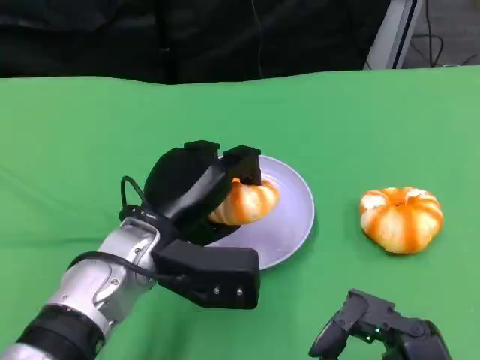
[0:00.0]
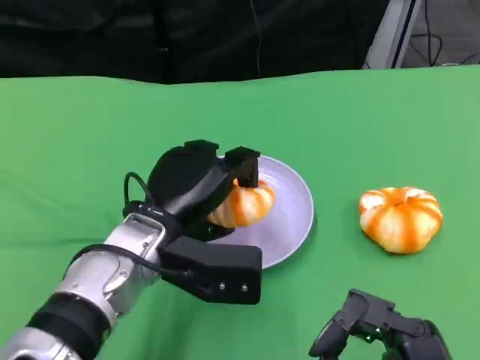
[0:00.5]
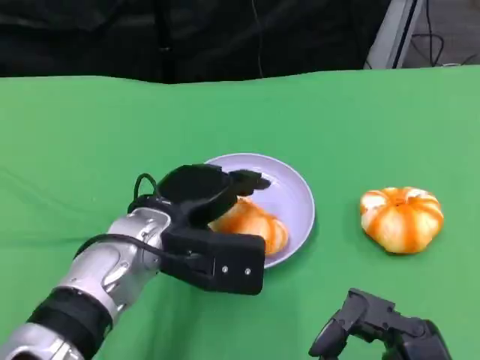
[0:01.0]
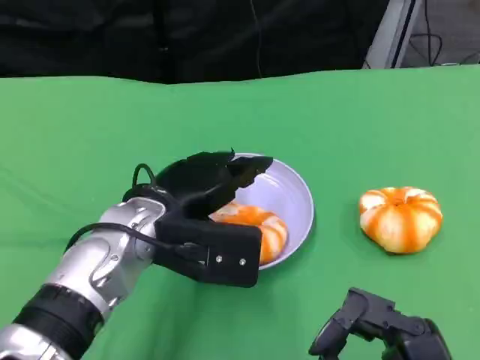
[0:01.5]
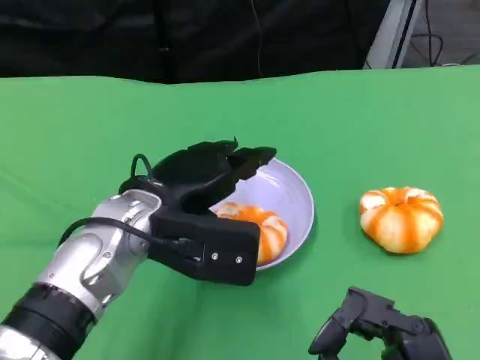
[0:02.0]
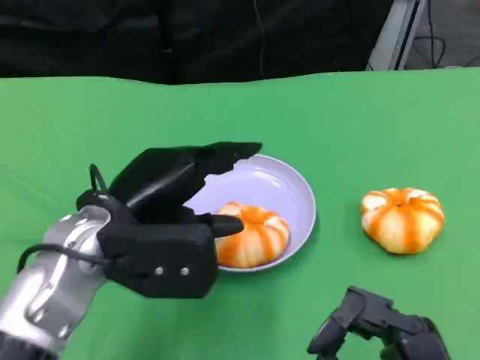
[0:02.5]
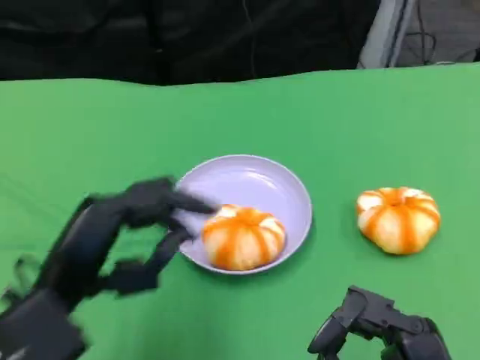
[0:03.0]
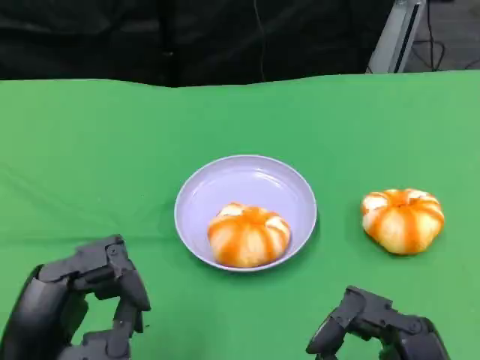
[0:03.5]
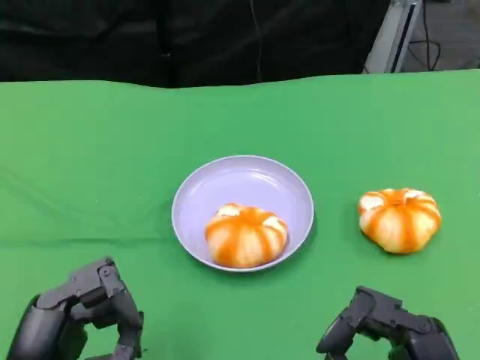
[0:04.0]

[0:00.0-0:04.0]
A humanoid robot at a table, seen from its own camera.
Task of the whole recording: Grasp the bread from the table and place it into the plate.
0:02.0 to 0:04.0: The left hand travels backward and to the left by some 20 cm.

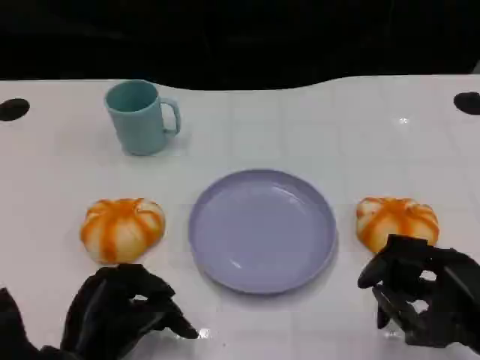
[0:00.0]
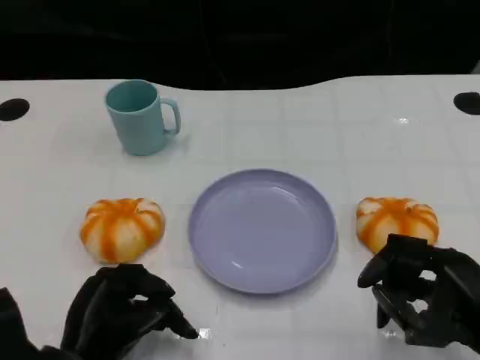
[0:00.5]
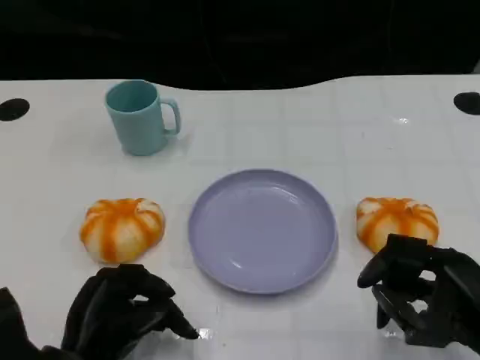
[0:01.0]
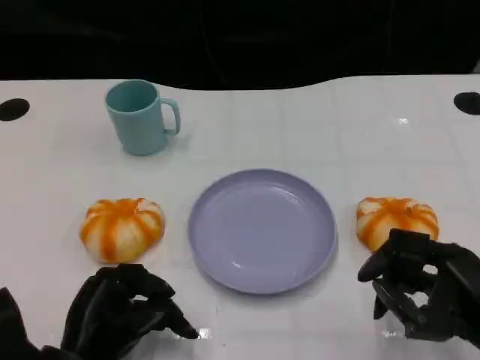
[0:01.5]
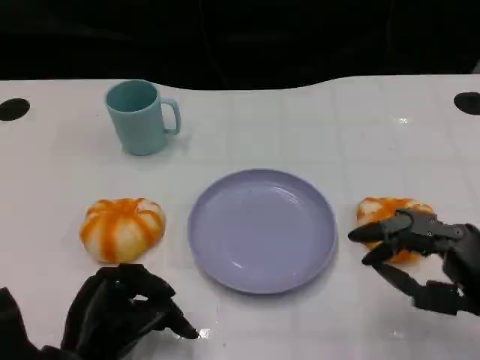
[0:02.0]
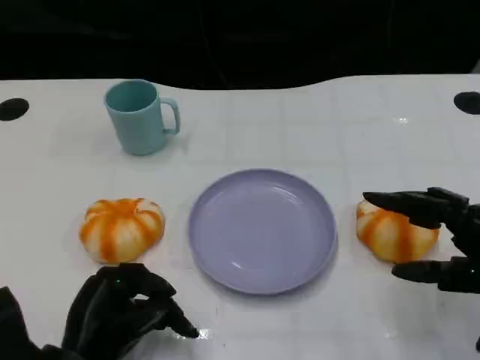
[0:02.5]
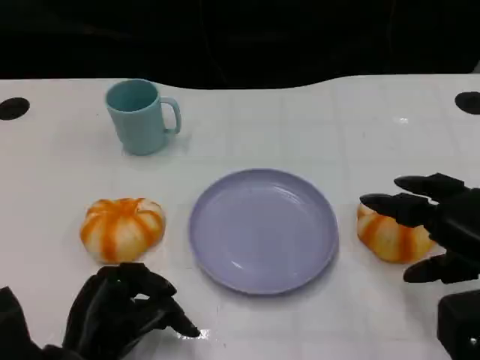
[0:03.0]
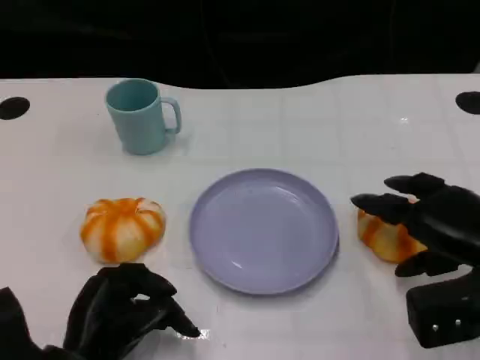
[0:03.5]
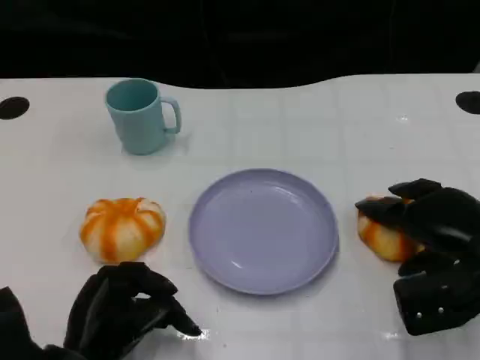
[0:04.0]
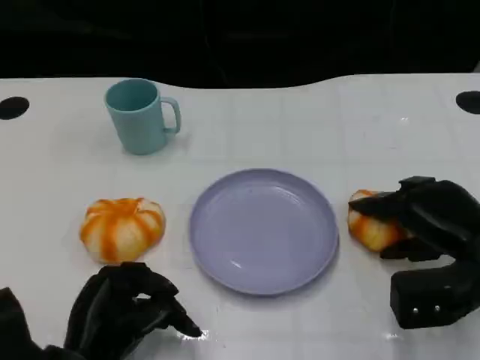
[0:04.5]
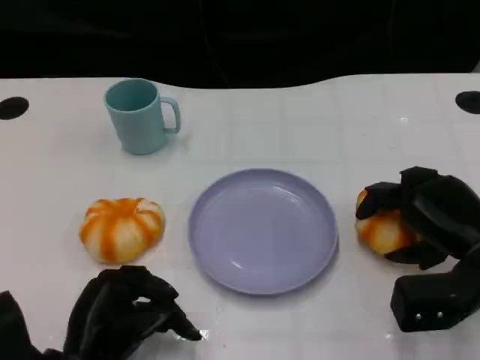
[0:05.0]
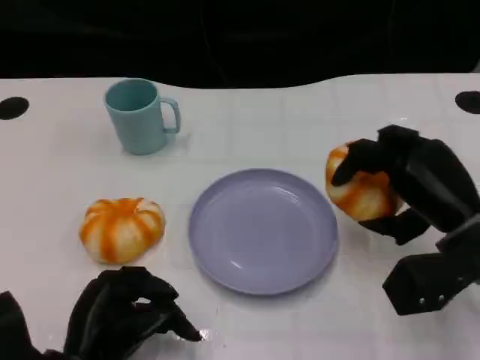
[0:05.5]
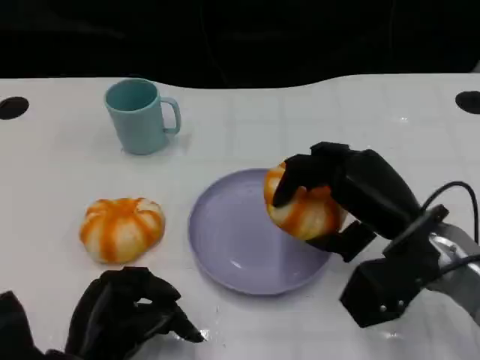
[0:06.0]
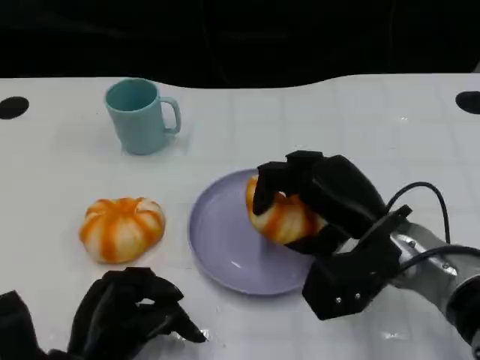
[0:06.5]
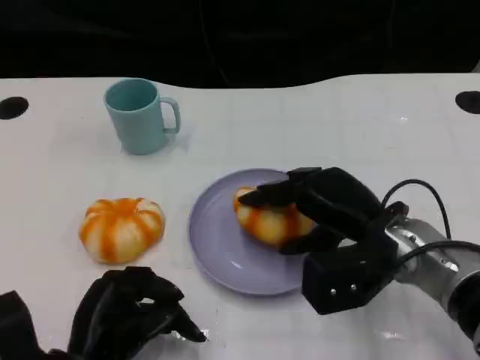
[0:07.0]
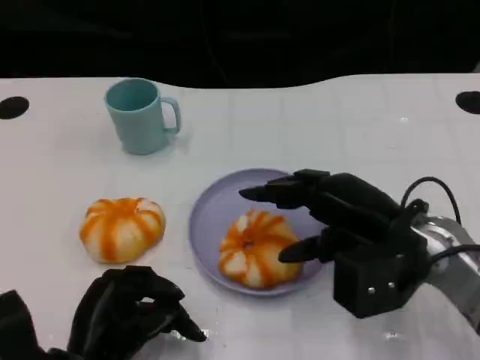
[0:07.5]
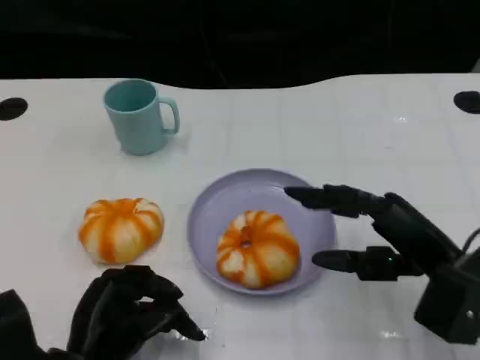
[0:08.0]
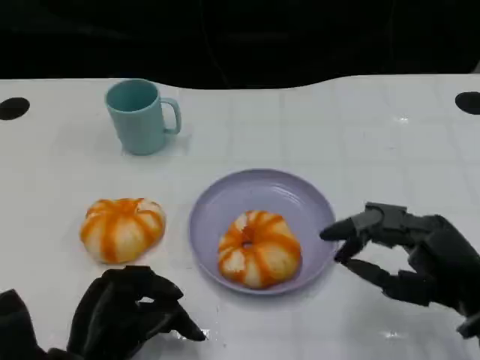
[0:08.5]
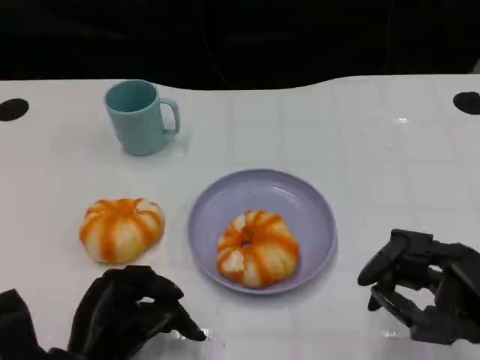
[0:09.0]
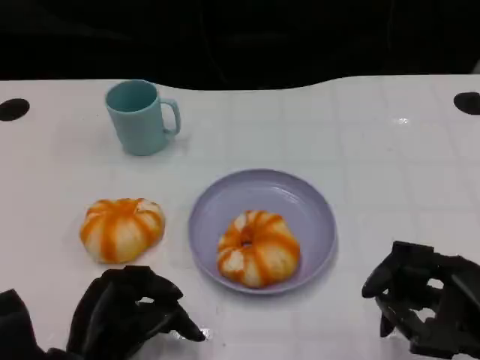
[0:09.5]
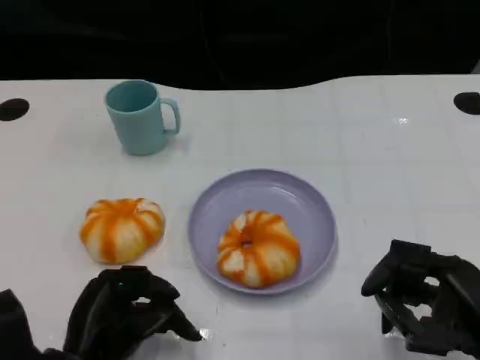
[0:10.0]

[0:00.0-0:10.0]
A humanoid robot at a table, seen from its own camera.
Task of the whole recording: Grasp the bread from the table and place it into the plate.
0:02.0 to 0:04.0: The right hand moves forward, some 10 cm.
0:04.0 to 0:06.0: The right hand moves to the left, some 10 cm.
0:06.0 to 0:08.0: The right hand ends up some 5 cm from where it was.
0:08.0 to 0:10.0: The right hand heads backward, covering roughly 5 cm.

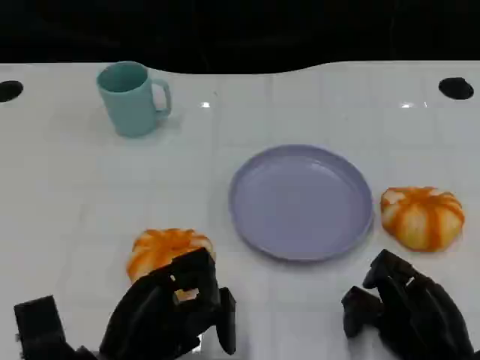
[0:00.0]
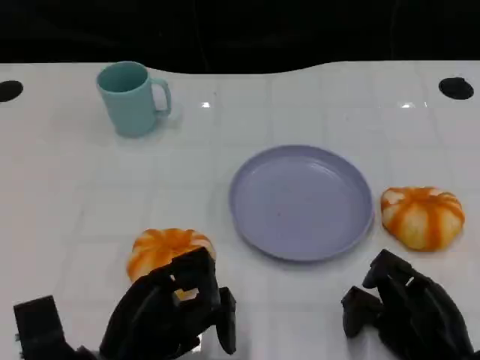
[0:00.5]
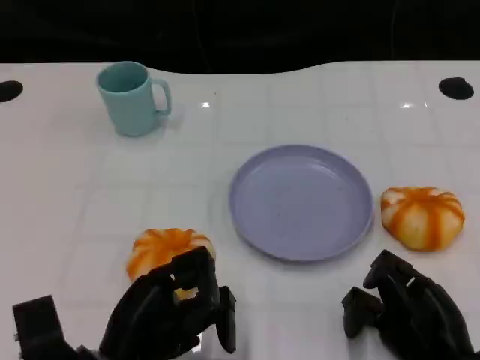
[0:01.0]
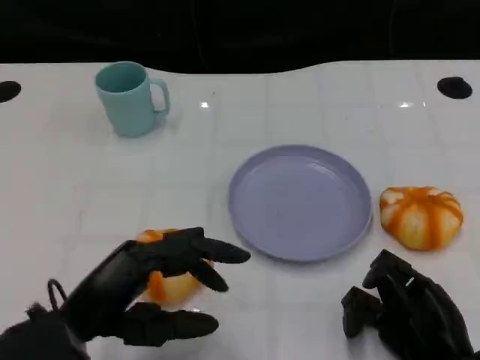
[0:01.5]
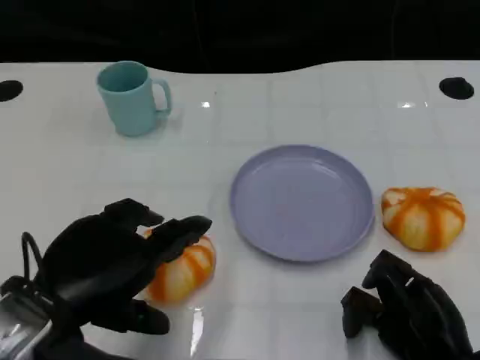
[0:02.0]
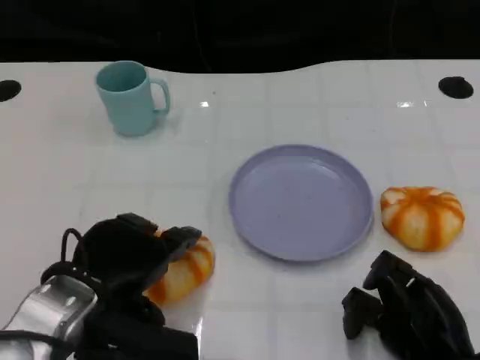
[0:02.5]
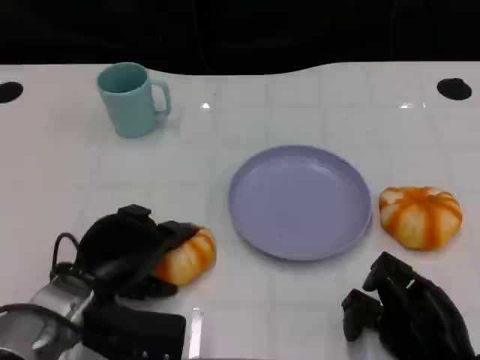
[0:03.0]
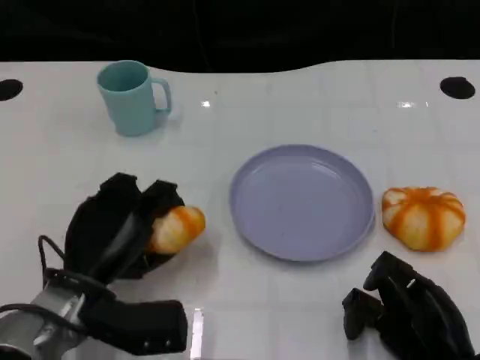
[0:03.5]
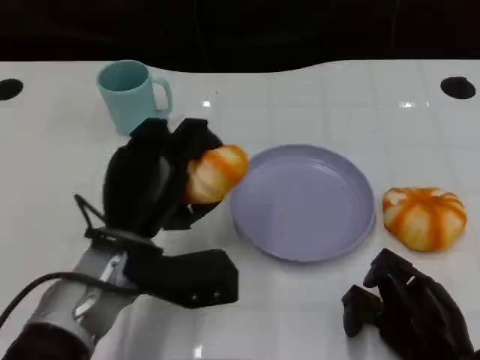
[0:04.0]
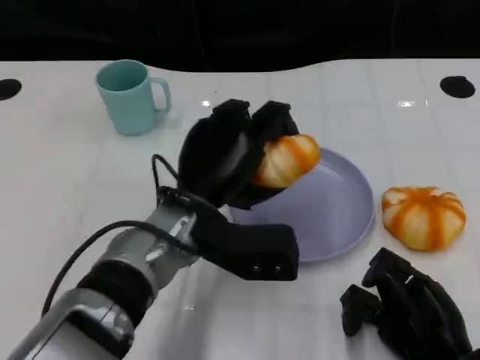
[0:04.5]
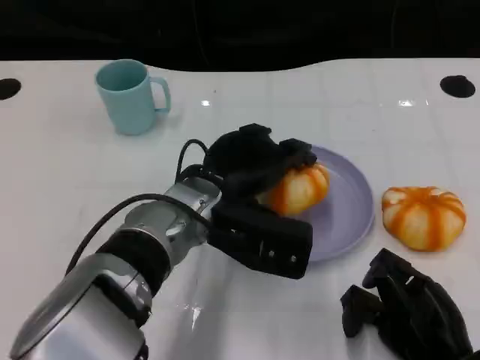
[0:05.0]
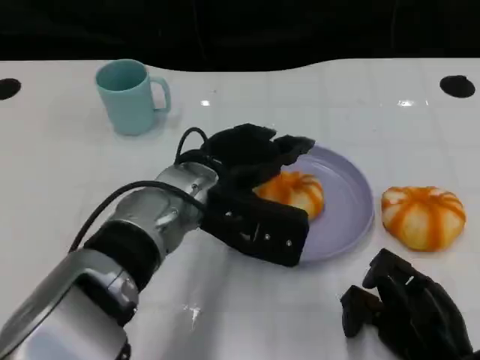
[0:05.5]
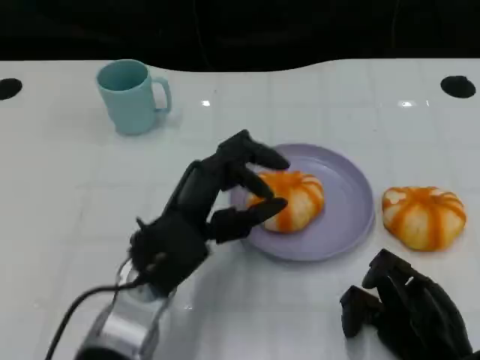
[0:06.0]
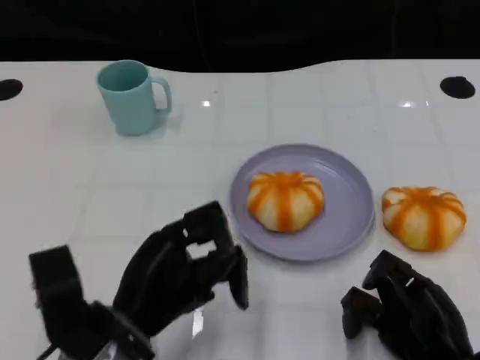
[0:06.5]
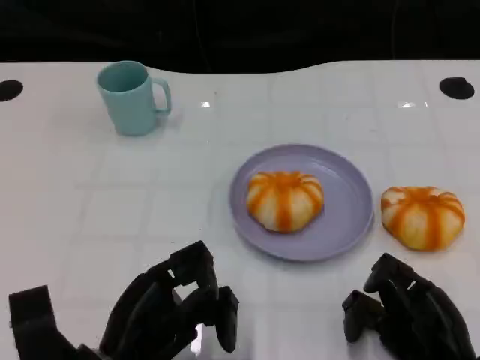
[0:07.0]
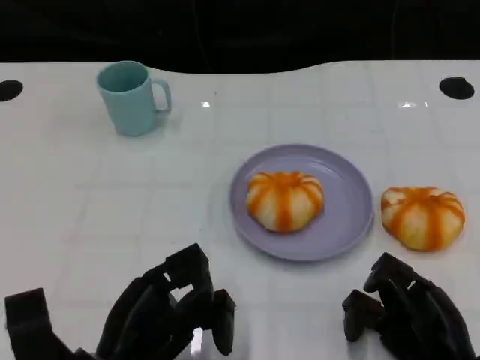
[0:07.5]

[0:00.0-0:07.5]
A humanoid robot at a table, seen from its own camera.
Task of the whole recording: Grasp the bread from the table and place it into the plate.
0:00.0 to 0:02.0: The left hand moves upward, approximately 10 cm.
0:02.0 to 0:04.0: The left hand is displaced forward and to the right by some 10 cm.
0:04.0 to 0:05.5: The left hand heads to the right, covering about 5 cm.
0:05.5 to 0:07.5: The left hand travels backward, to the left and downward by about 20 cm.

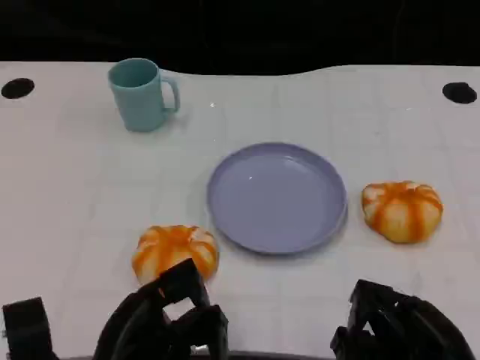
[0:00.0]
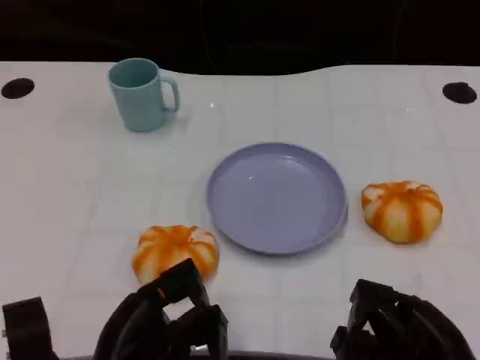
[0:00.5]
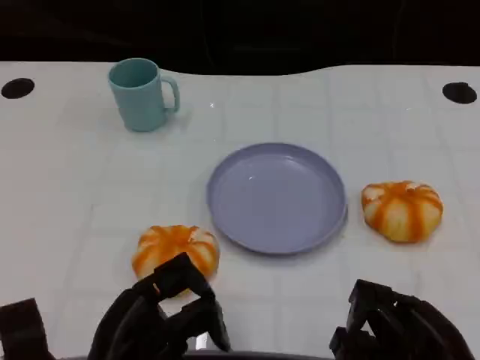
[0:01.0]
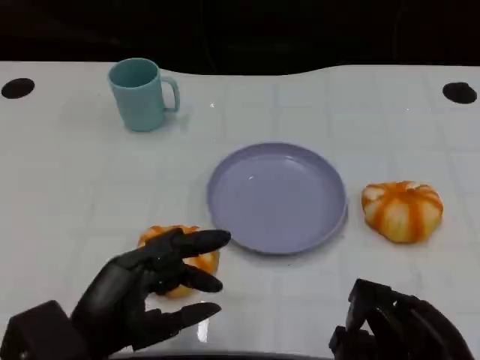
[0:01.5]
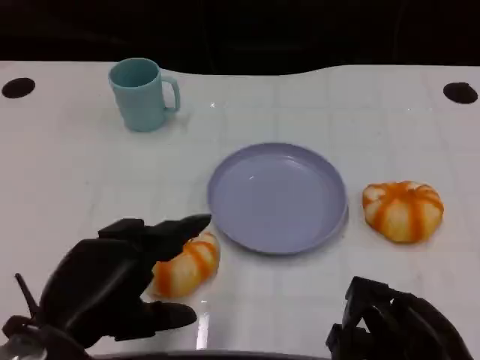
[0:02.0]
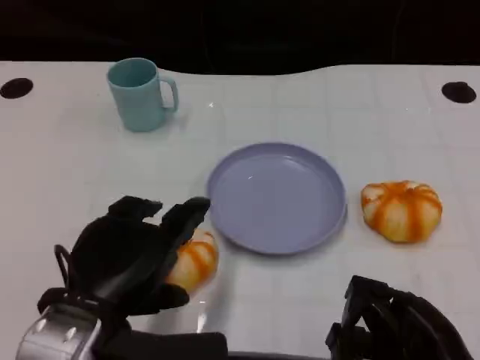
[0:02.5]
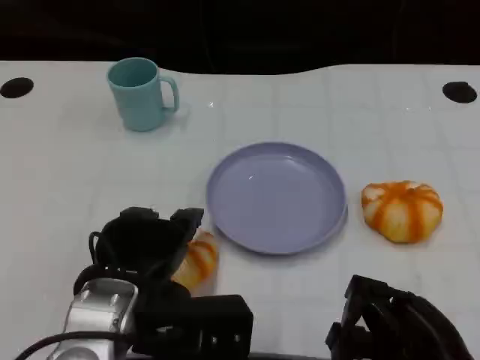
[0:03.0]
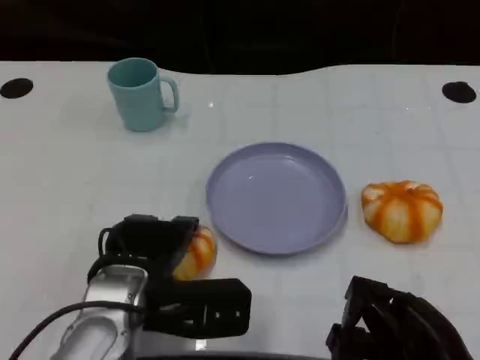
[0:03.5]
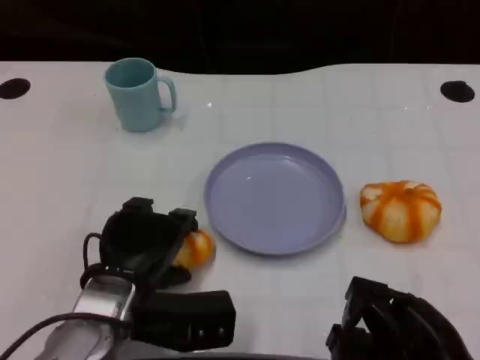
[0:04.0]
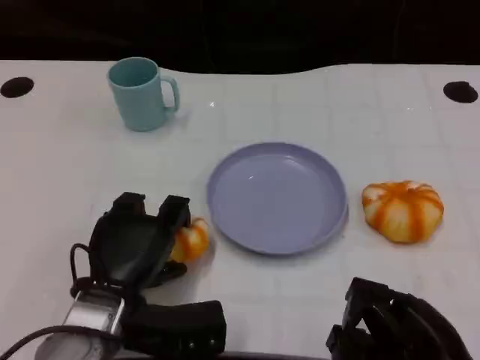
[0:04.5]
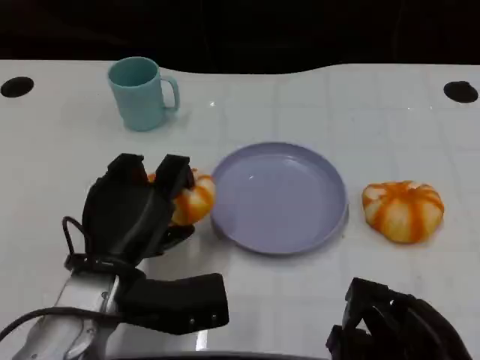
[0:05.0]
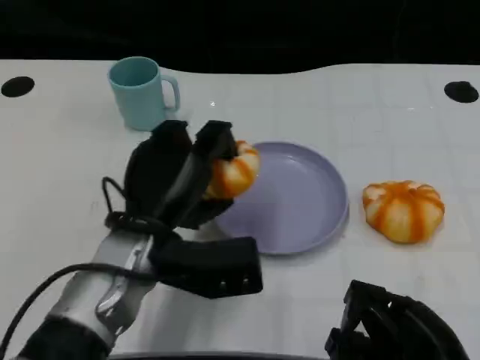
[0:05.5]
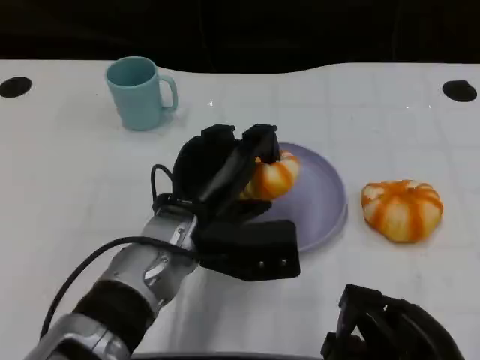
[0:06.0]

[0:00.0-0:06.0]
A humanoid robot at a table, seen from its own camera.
Task of the whole recording: Grasp the bread from the table and place it into the plate.
0:00.0 to 0:02.0: The left hand heads upward, covering roughly 10 cm.
0:02.0 to 0:04.0: The left hand shifts some 10 cm forward and downward.
0:04.0 to 0:06.0: The left hand heads to the right, covering approximately 5 cm.
